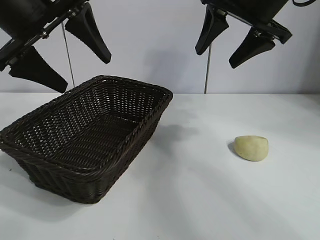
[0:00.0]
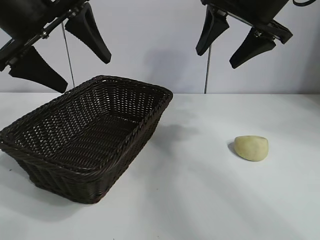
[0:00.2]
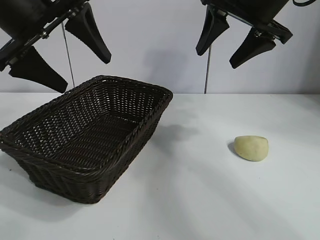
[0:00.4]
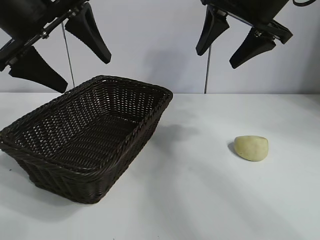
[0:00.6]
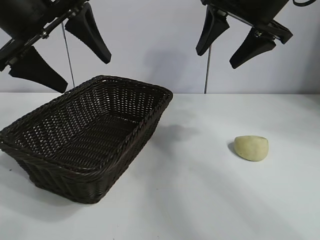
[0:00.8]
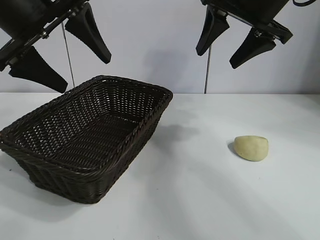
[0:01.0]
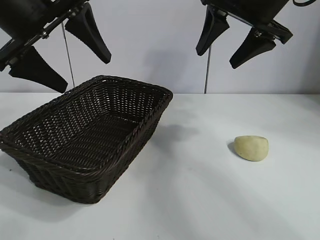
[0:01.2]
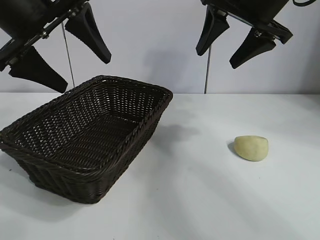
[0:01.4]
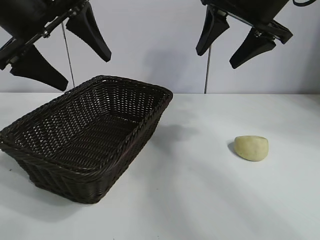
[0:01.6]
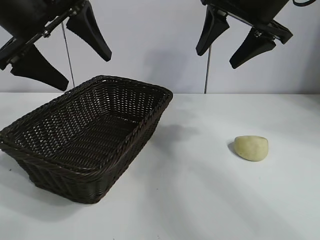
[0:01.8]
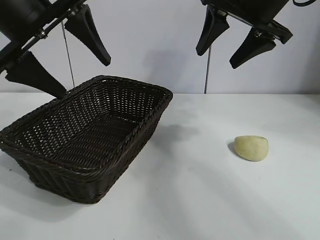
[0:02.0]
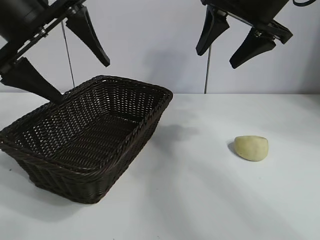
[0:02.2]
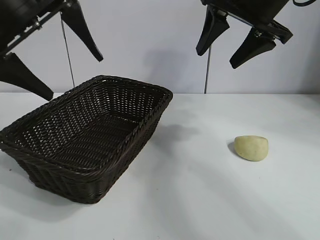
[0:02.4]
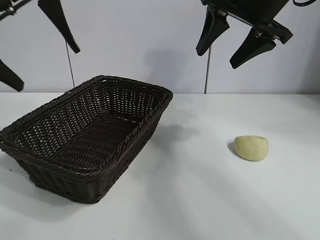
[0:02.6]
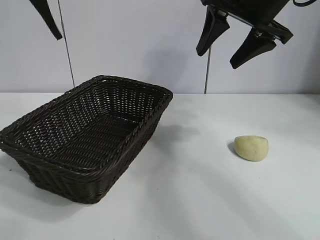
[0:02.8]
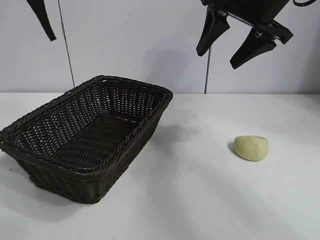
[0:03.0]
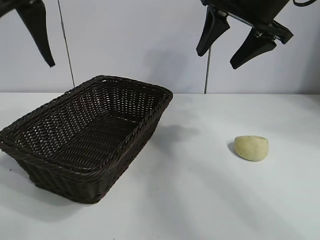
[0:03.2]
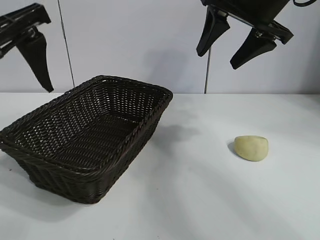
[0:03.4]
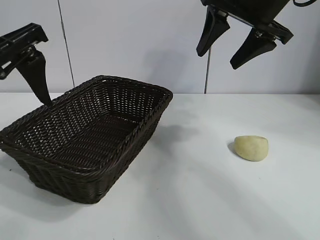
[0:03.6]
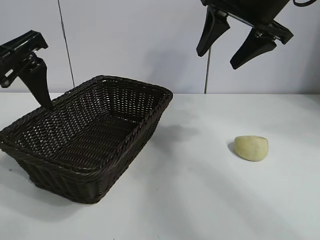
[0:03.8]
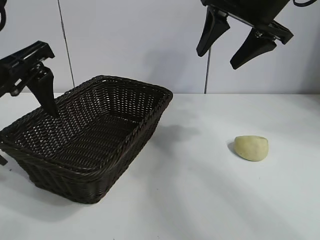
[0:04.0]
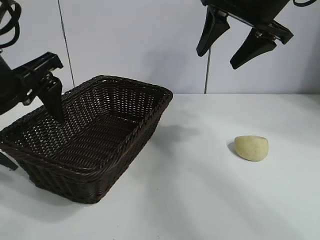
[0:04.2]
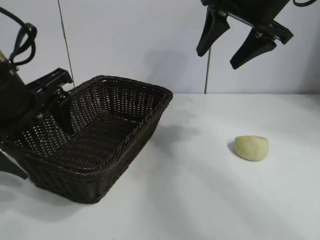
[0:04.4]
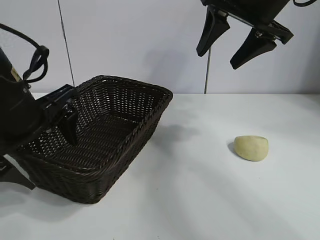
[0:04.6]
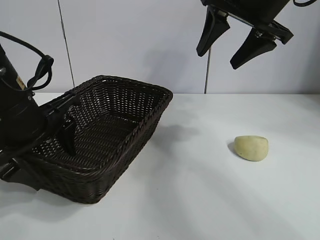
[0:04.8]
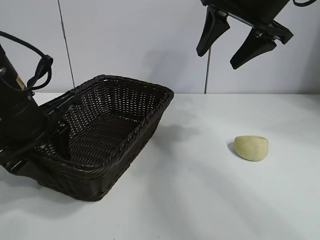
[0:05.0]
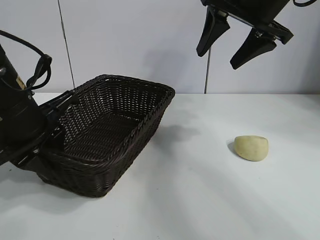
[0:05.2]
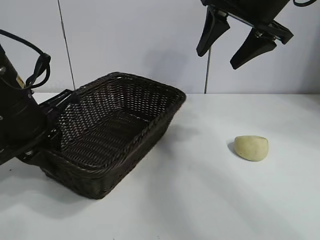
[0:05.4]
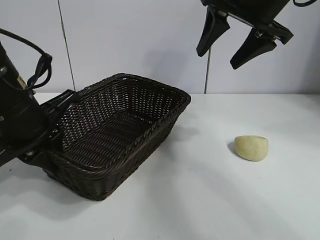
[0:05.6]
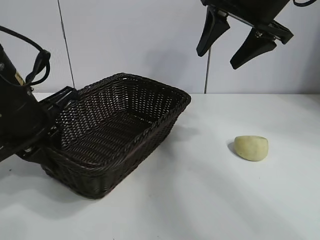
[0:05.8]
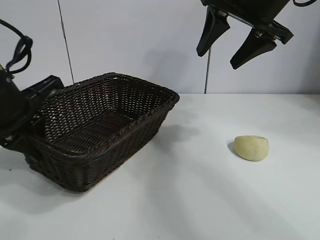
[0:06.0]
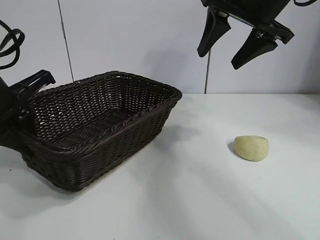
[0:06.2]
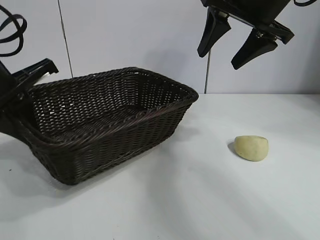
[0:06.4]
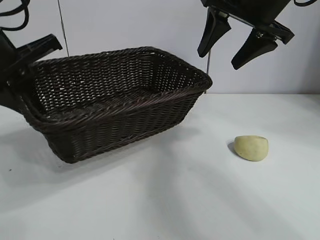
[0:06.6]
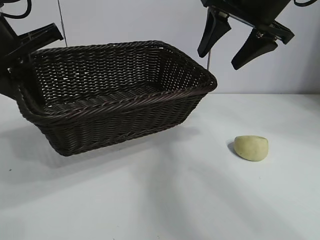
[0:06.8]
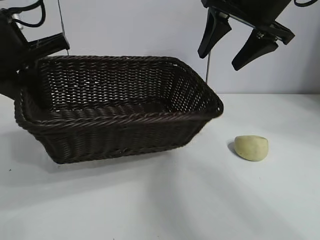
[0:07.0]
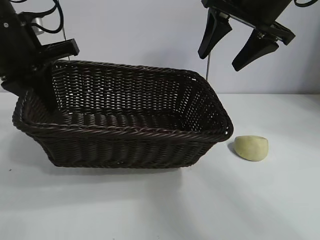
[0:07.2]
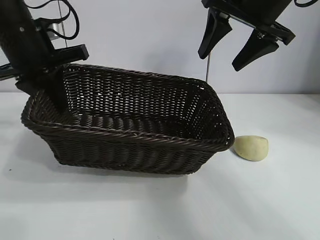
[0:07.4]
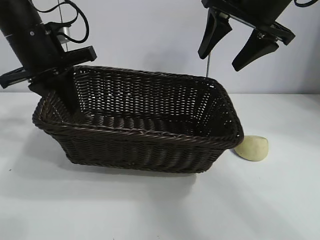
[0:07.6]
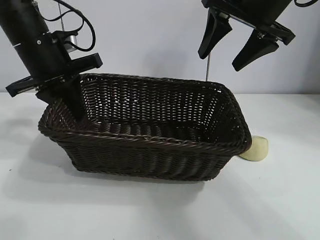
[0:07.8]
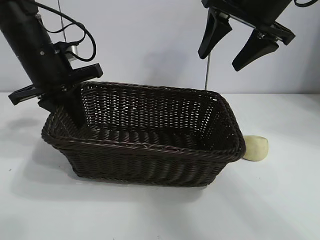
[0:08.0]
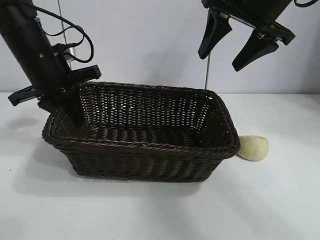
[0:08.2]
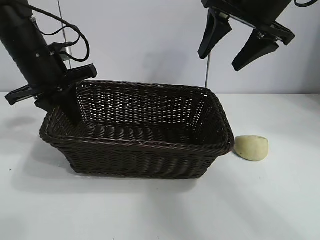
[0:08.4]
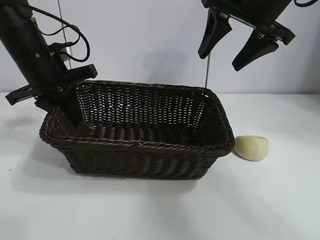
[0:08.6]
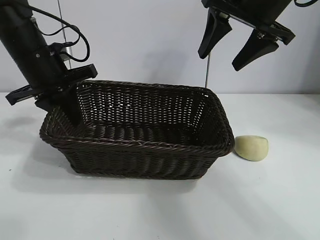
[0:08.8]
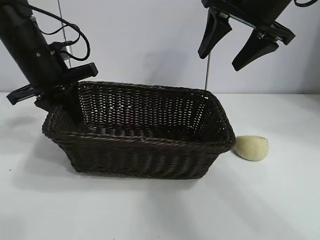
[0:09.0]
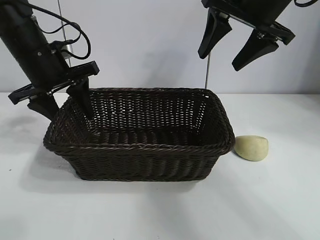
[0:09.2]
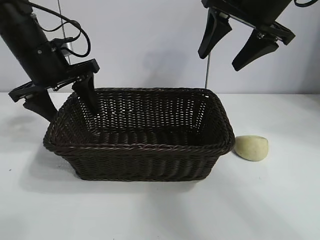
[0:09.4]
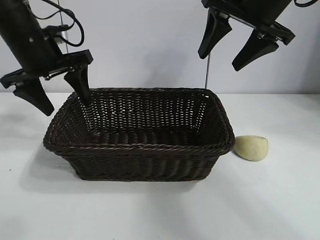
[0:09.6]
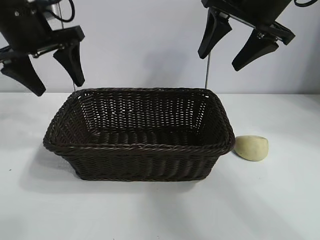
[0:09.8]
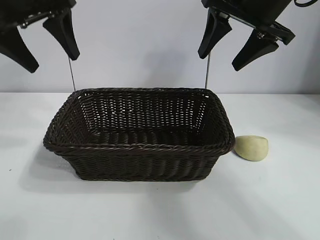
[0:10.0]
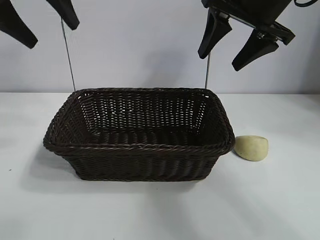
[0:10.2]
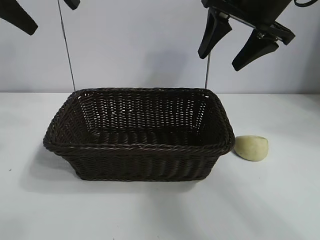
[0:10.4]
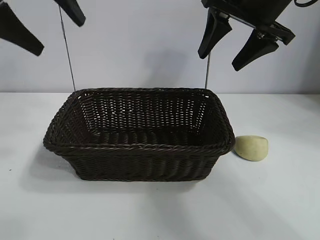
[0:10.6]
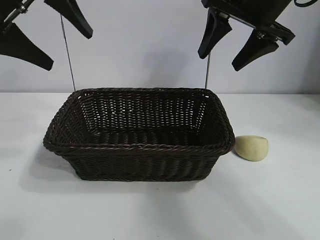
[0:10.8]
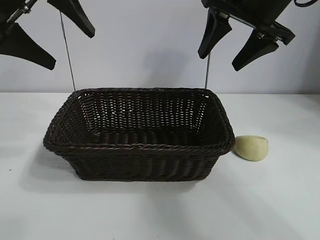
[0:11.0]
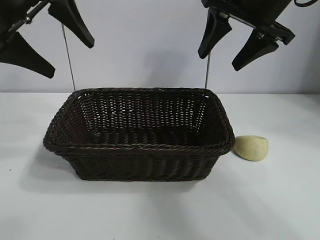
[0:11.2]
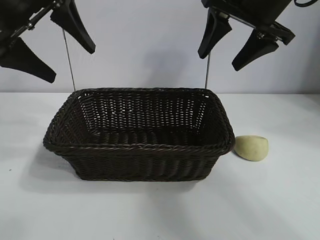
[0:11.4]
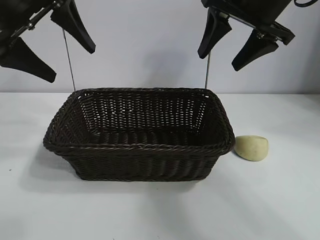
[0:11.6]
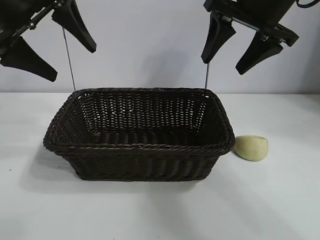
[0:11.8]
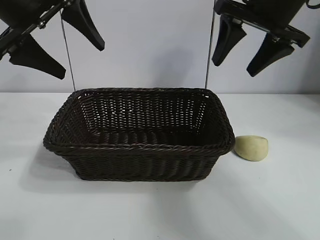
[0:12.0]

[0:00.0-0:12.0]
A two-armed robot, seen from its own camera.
Task of the whole recording: pick up the egg yolk pastry and put it into the basket.
Step, 0:00.0 to 0:05.2: Grasp the basket with left gripper.
Step, 0:05.4 to 0:09.0: Place the basket in the center of view with left gripper.

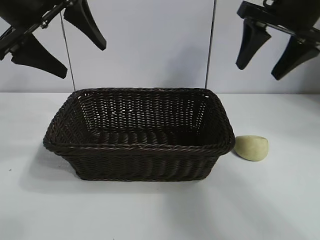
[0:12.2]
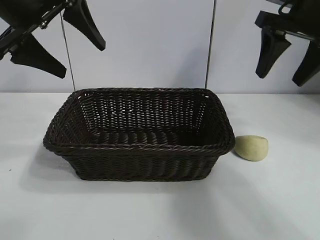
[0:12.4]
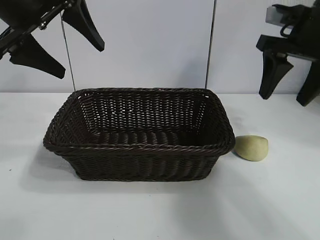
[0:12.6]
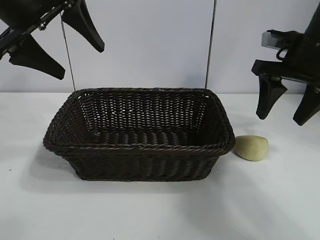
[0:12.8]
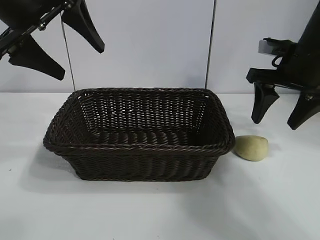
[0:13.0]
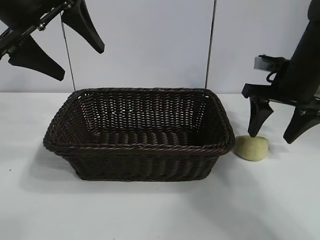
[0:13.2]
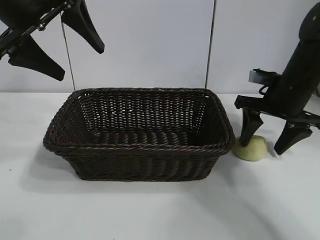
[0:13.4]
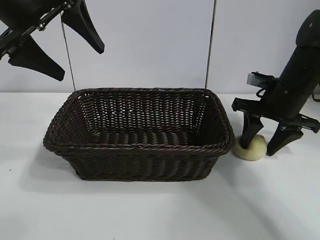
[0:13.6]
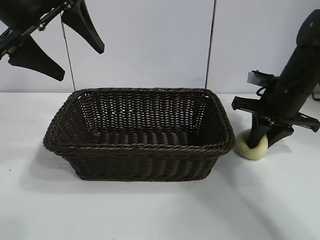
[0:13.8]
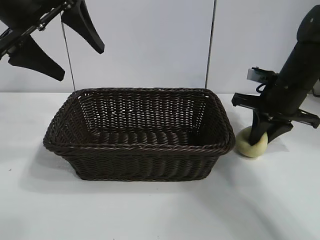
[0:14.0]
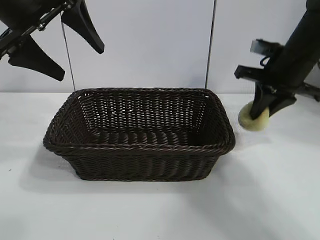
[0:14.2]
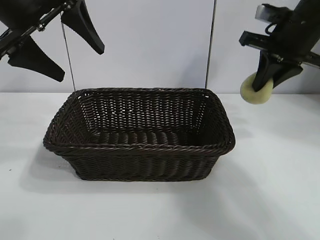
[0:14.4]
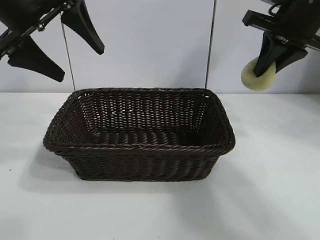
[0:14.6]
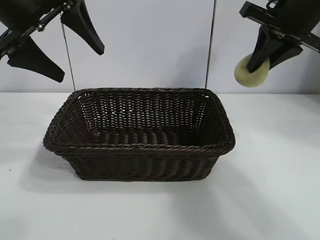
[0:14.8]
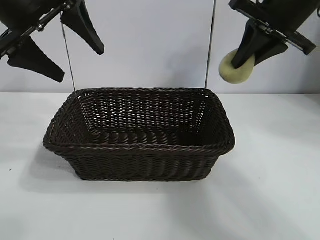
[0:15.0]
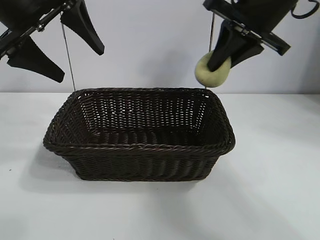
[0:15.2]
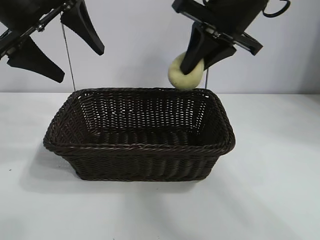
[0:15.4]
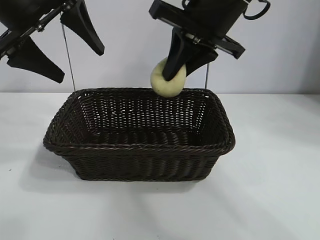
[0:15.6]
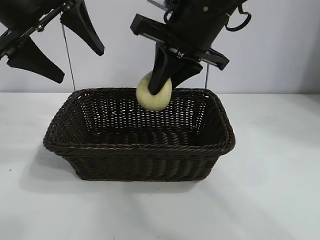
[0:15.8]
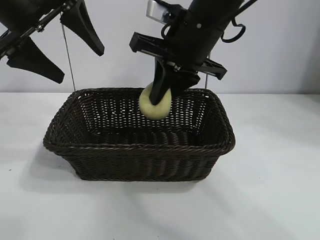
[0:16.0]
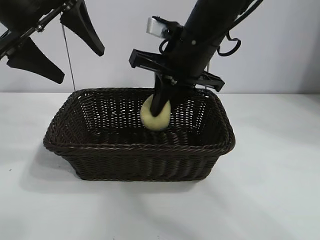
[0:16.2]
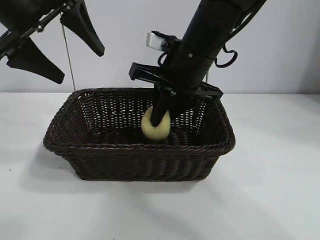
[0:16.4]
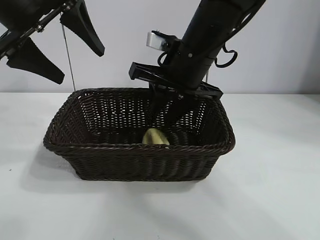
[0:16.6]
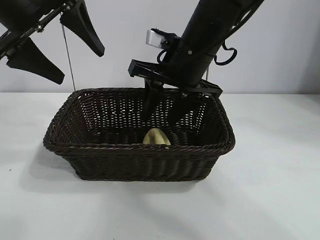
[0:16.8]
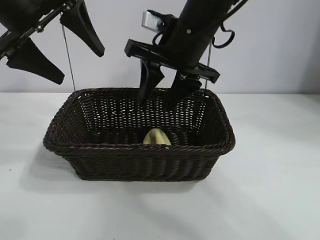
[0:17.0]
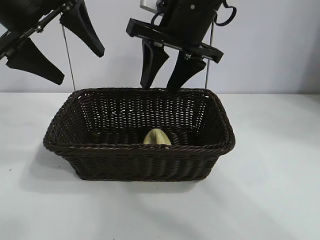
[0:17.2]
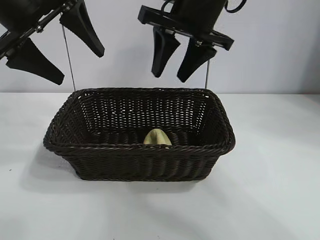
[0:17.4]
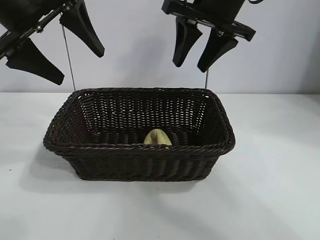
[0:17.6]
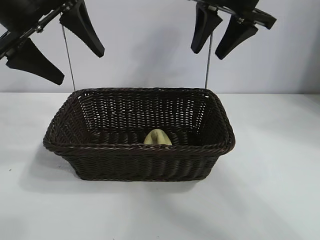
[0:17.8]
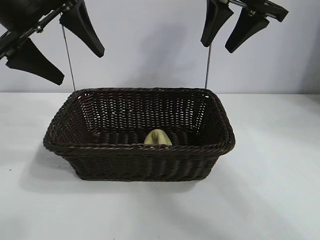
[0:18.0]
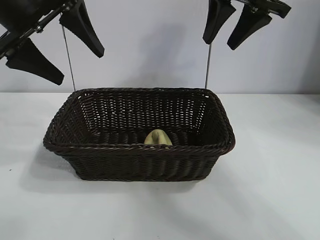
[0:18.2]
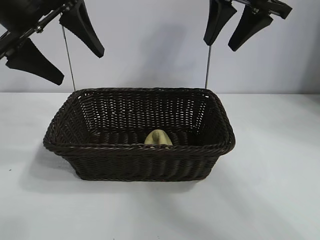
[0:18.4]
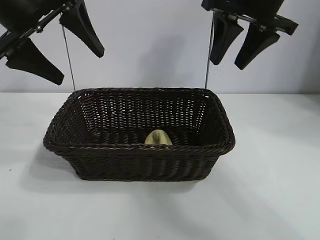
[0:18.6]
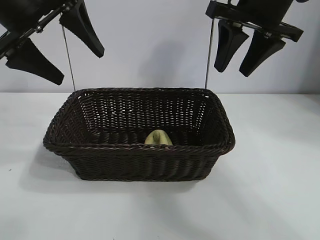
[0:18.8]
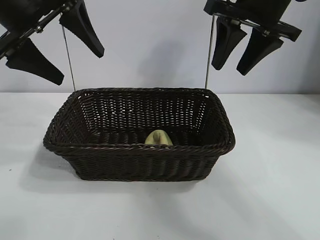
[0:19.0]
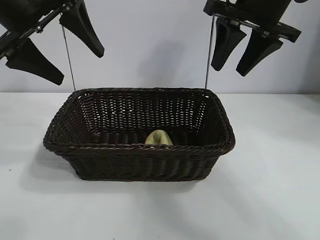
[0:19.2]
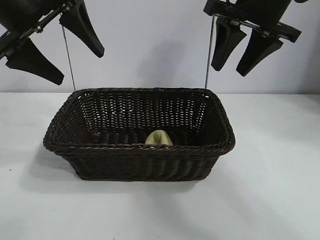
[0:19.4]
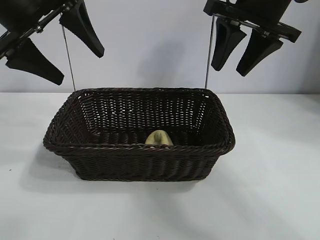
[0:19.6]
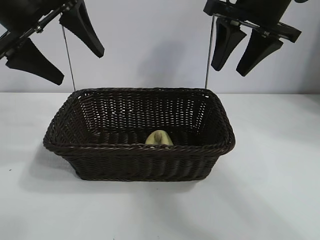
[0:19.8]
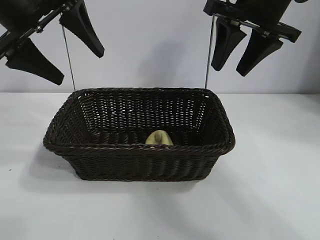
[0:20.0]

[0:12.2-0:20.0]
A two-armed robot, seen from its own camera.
Task of the whole recording: pick up the egg yolk pastry and put it into the basket.
Step, 0:14.0 to 0:16.4: Place the egg yolk pastry in the basket with right gripper.
